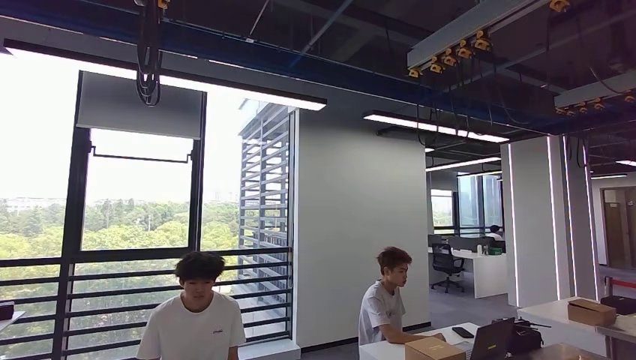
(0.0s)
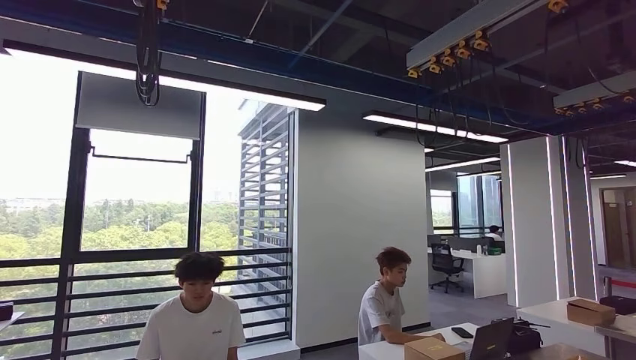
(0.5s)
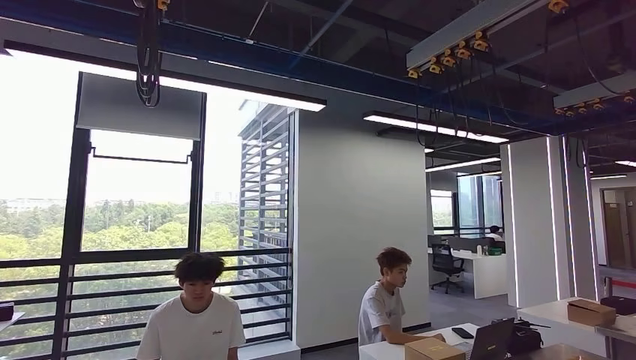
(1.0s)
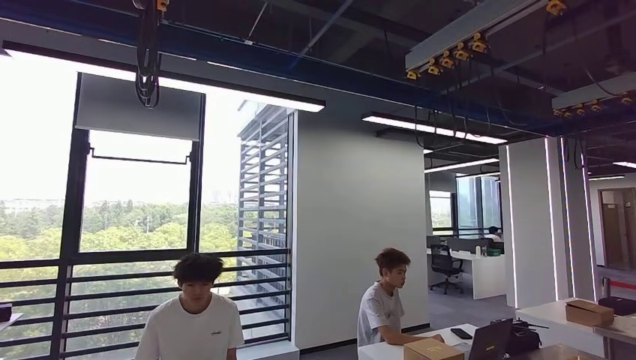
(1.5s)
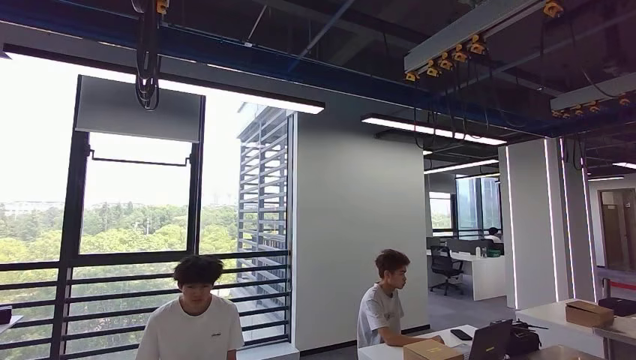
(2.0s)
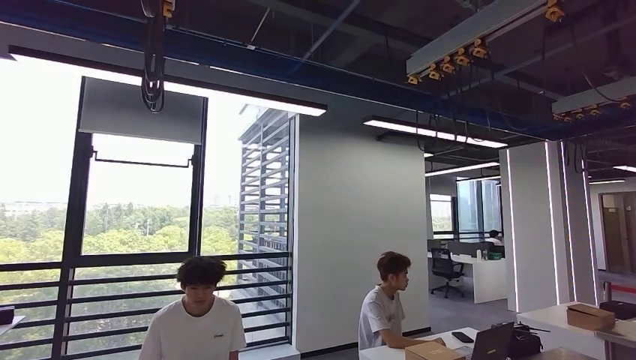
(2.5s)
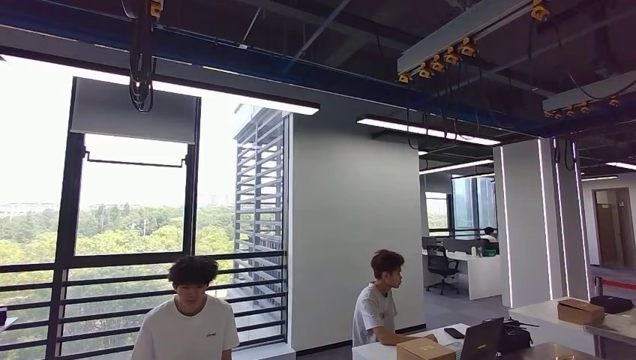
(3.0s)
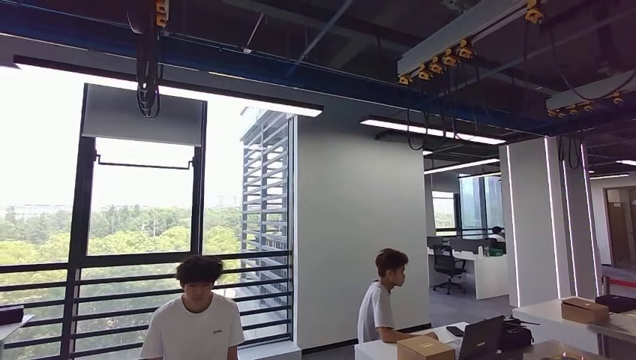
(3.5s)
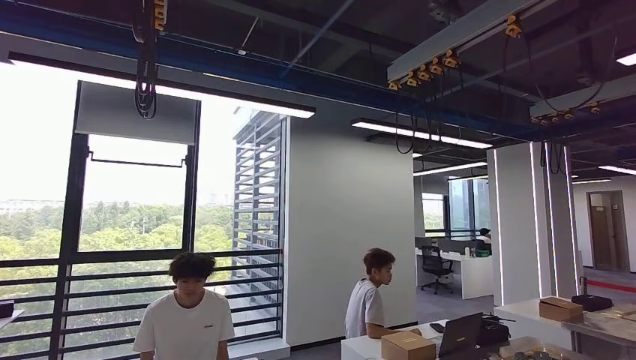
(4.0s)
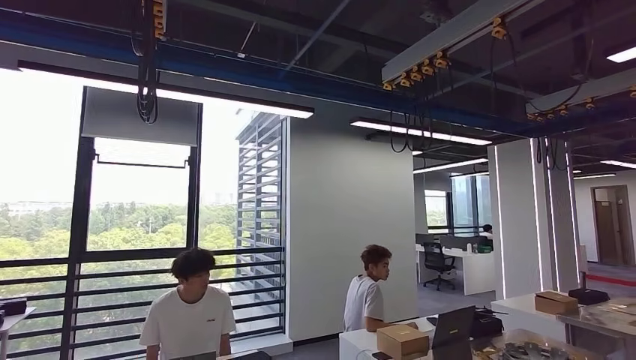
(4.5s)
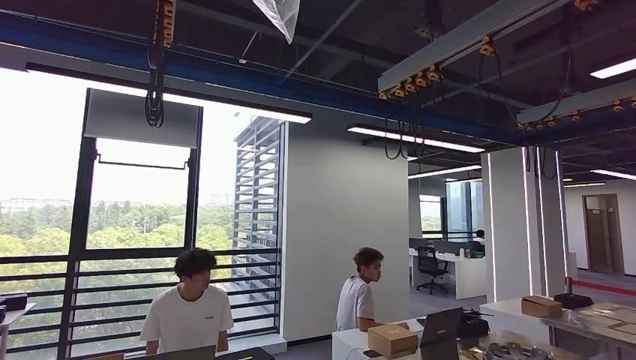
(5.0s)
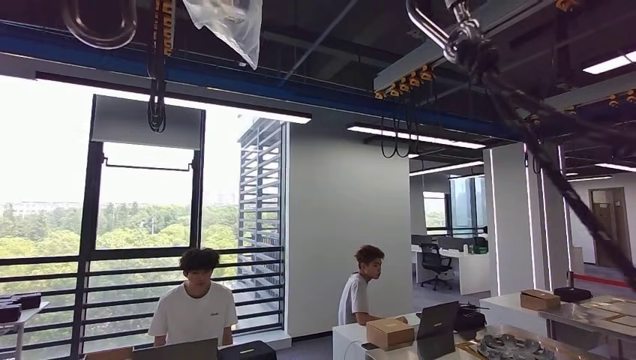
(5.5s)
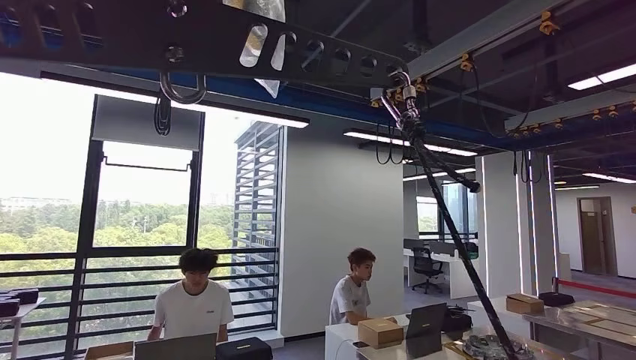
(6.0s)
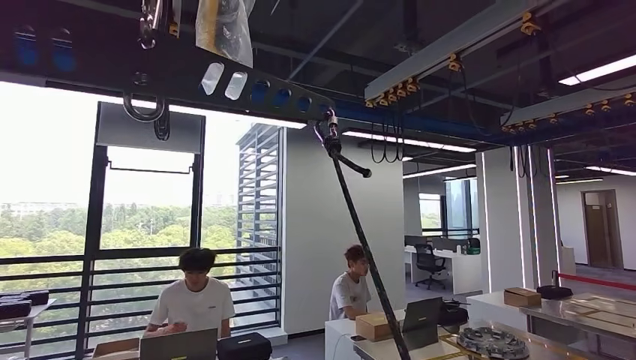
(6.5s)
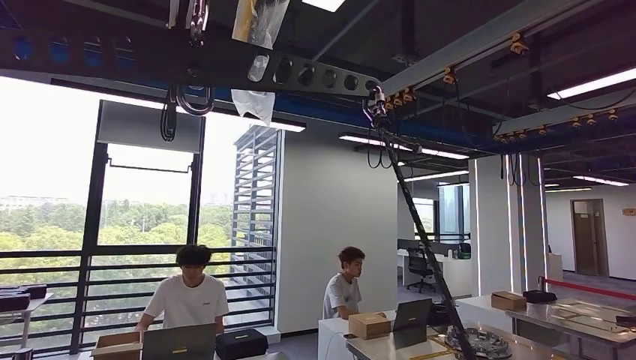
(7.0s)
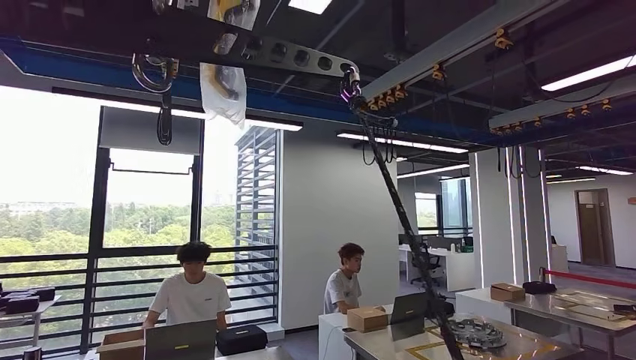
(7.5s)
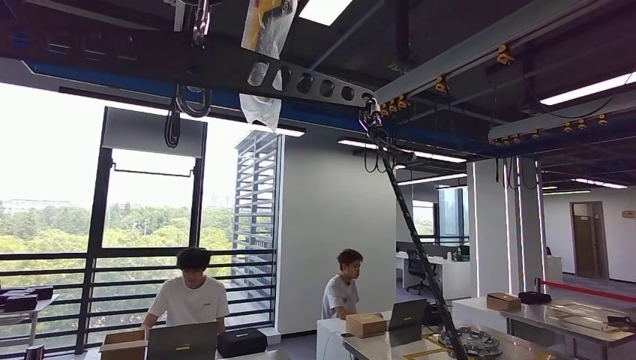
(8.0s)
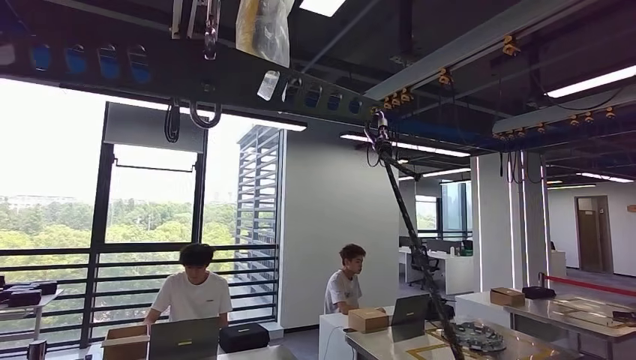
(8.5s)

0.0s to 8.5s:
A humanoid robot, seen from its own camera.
Step, 1.5s to 8.5s: Move to the initial position of the shelf.
